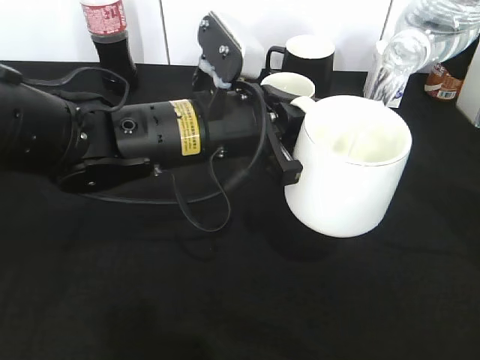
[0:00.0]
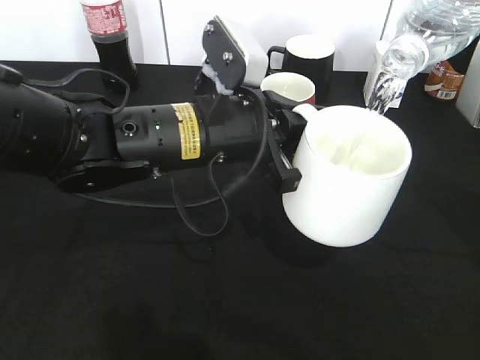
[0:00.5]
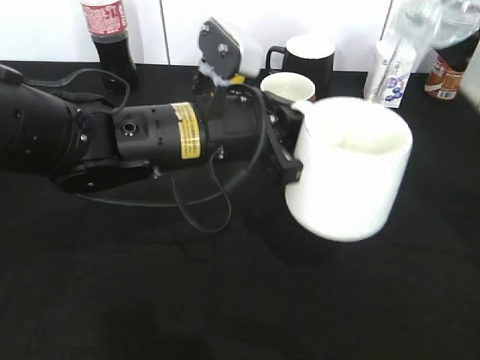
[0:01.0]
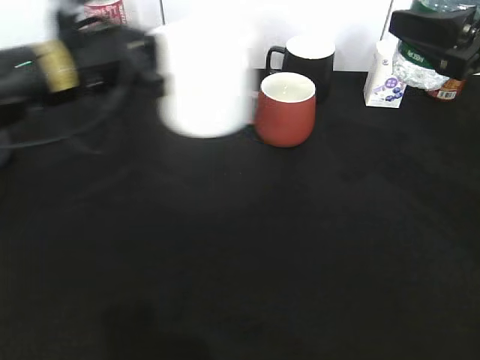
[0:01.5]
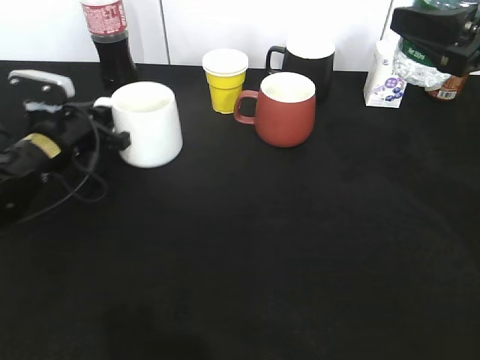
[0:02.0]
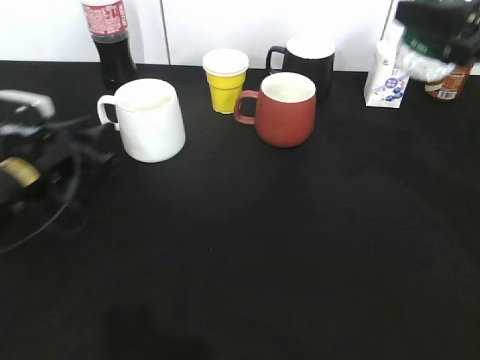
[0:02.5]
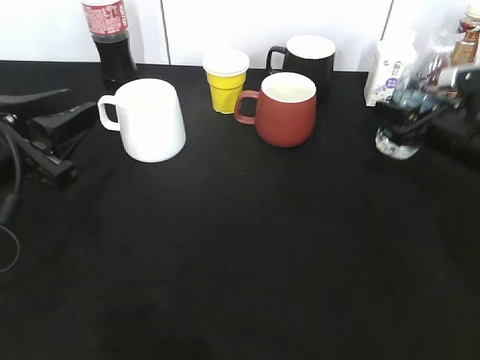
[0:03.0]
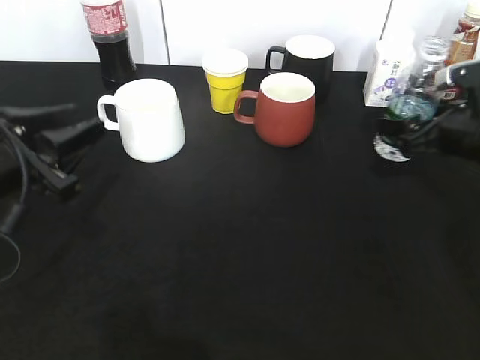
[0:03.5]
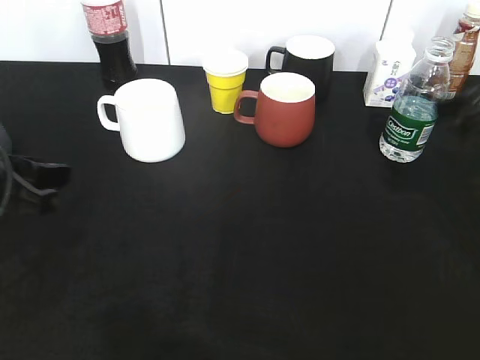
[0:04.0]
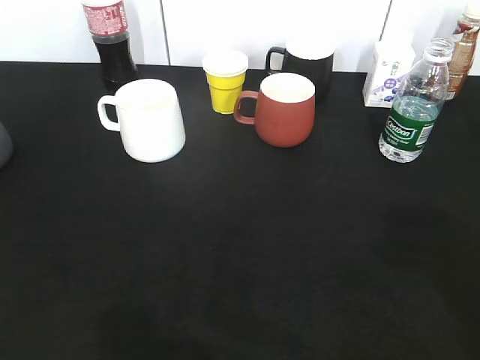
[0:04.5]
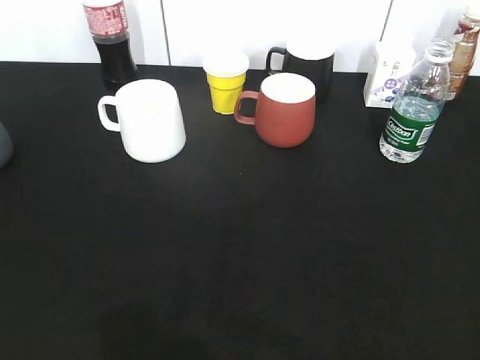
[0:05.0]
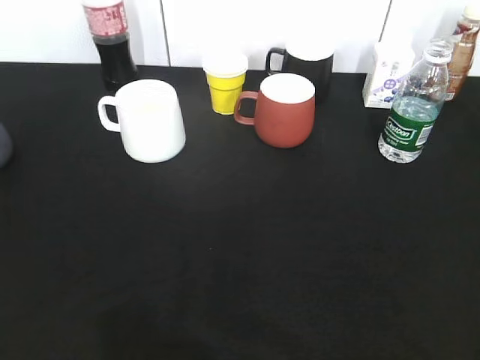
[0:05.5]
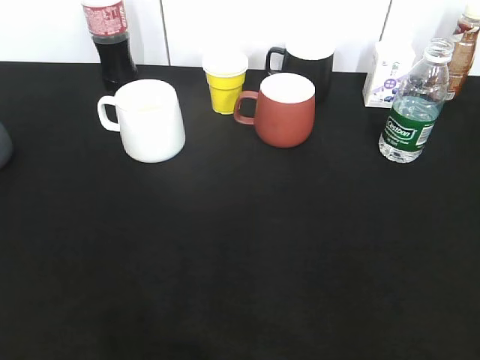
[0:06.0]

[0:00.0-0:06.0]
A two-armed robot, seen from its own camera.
Step, 0:01.5 to 0:02.0: Place the white cup on the table with left gripper.
Step, 0:03.0 to 0:03.5: Place the water bottle on the table with right gripper.
0:00.0 to 0:02.0: The left gripper heads to the left, downward and forward, covering approximately 25 cm.
0:02.0 to 0:04.0: The right gripper reaches about 15 cm downward, then returns, and opens. Meanwhile the left gripper goes some 20 cm backward and upward, and opens its fingers.
0:04.0 to 0:06.0: The two grippers go roughly 25 cm backward. The right gripper closes up.
